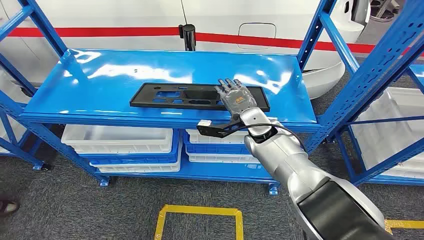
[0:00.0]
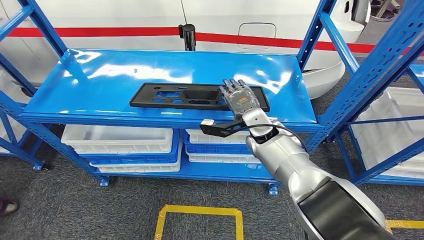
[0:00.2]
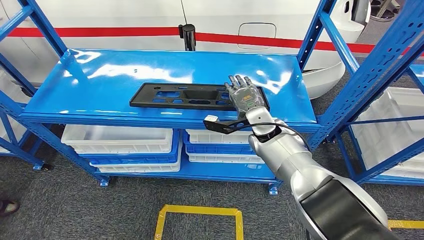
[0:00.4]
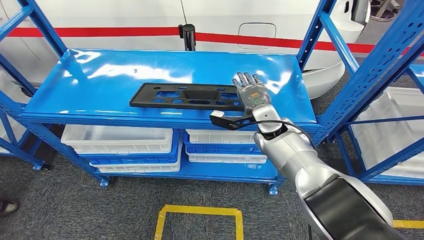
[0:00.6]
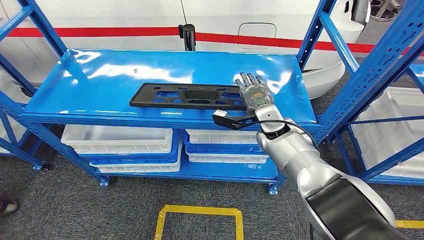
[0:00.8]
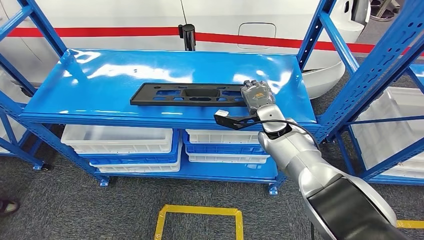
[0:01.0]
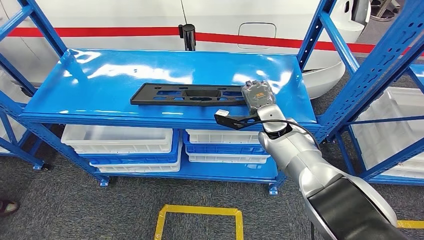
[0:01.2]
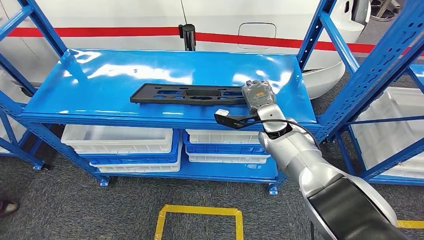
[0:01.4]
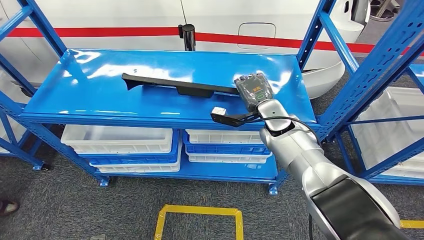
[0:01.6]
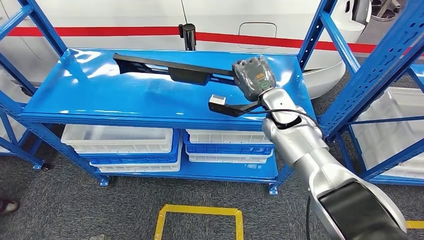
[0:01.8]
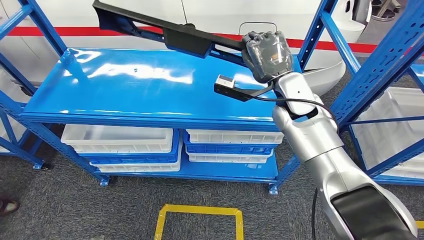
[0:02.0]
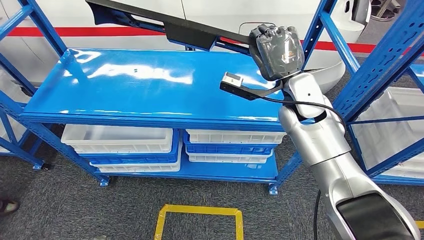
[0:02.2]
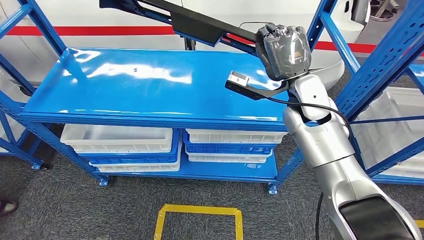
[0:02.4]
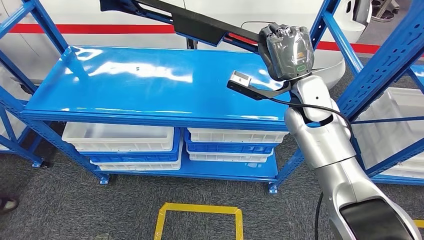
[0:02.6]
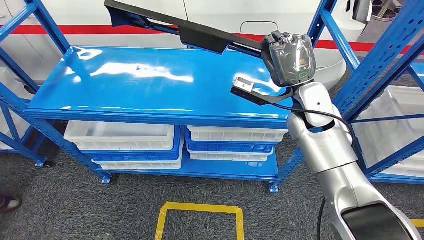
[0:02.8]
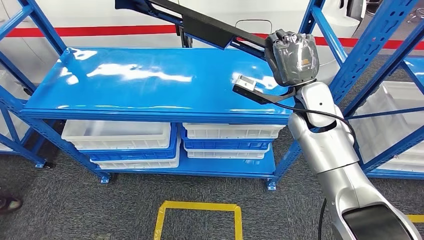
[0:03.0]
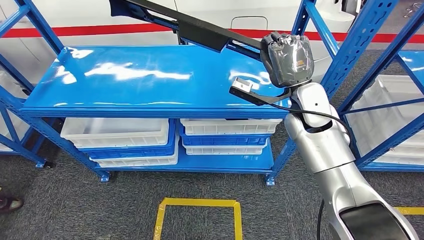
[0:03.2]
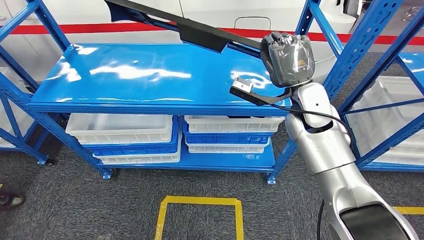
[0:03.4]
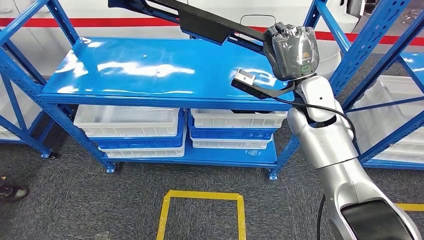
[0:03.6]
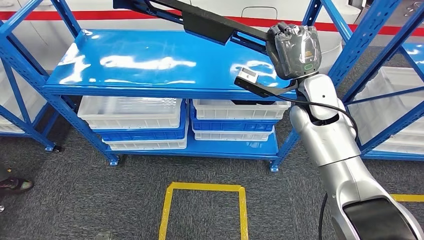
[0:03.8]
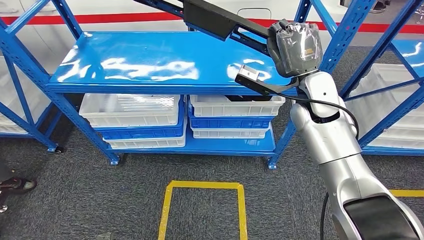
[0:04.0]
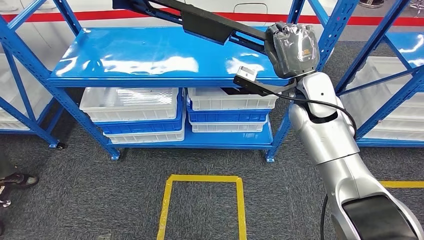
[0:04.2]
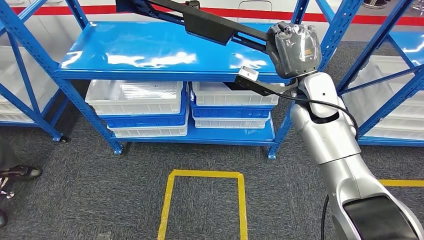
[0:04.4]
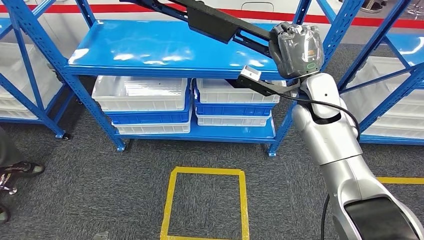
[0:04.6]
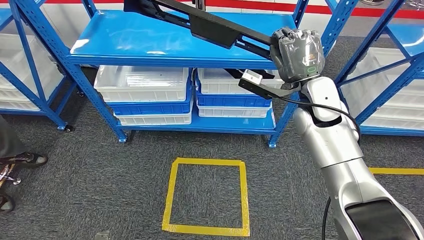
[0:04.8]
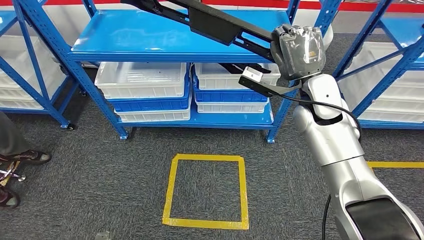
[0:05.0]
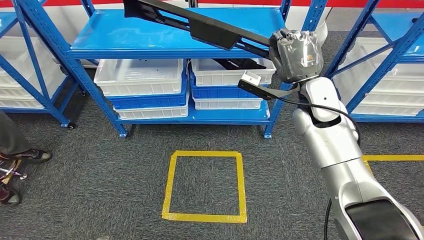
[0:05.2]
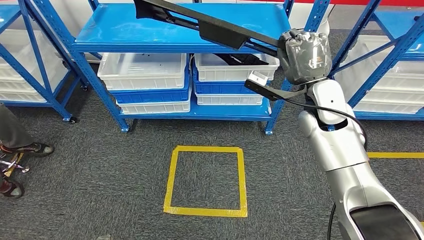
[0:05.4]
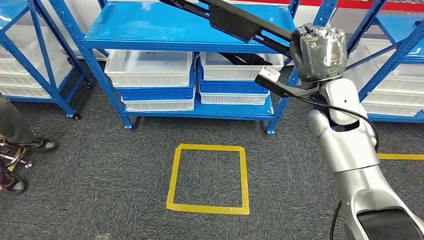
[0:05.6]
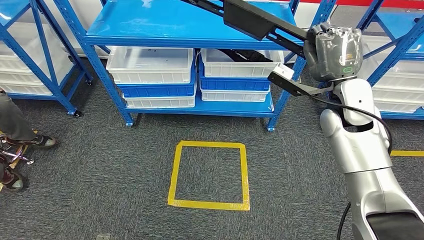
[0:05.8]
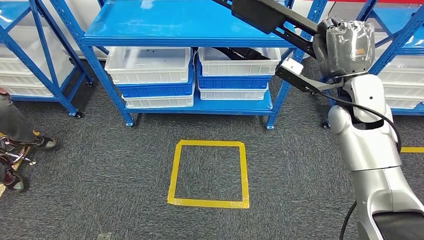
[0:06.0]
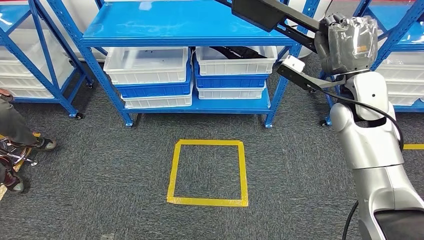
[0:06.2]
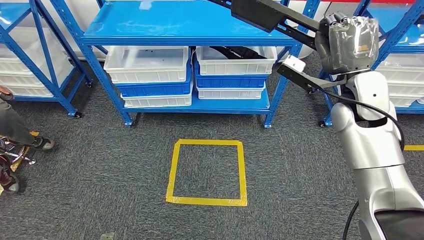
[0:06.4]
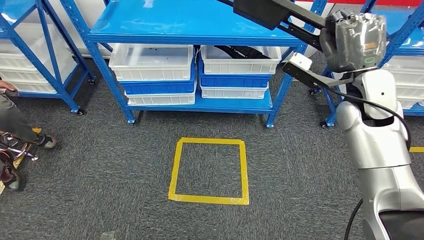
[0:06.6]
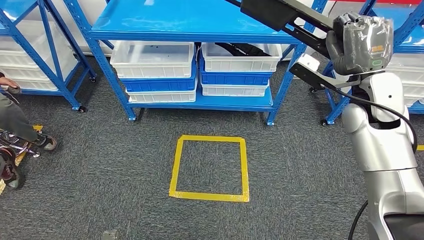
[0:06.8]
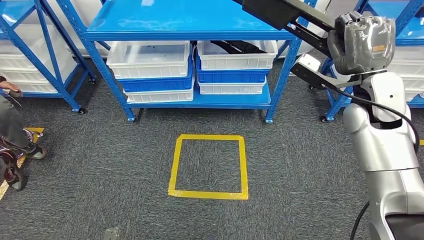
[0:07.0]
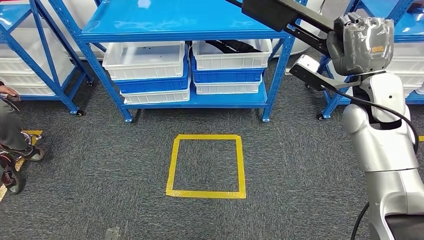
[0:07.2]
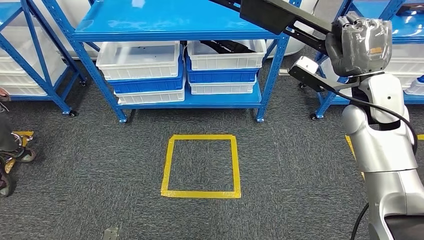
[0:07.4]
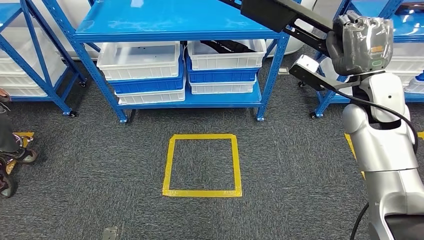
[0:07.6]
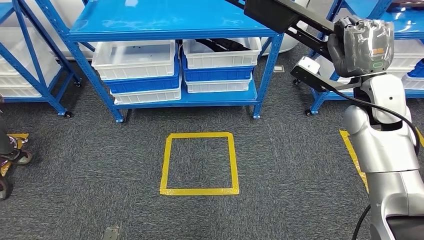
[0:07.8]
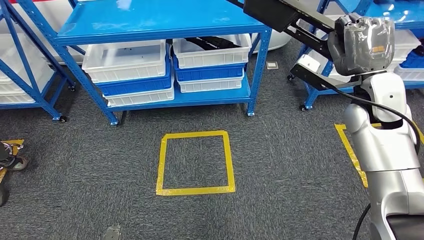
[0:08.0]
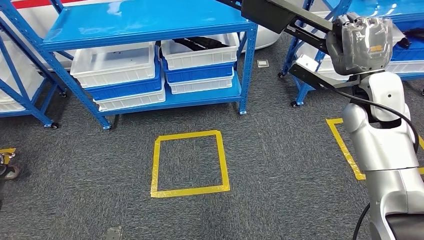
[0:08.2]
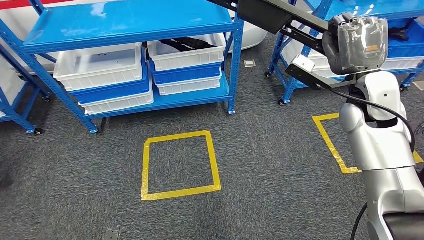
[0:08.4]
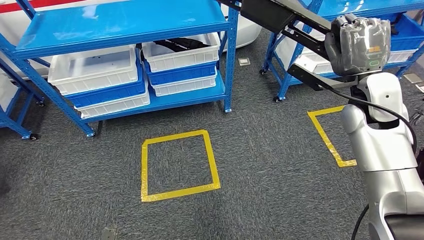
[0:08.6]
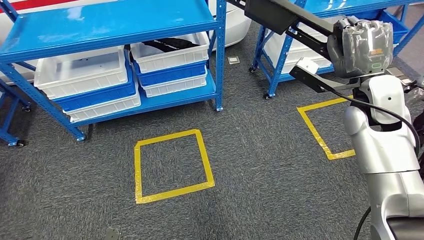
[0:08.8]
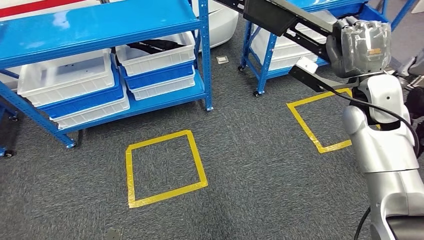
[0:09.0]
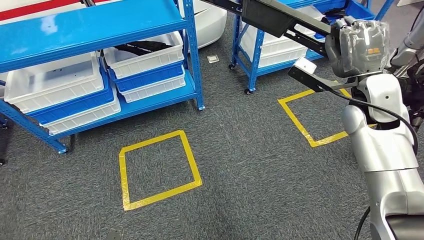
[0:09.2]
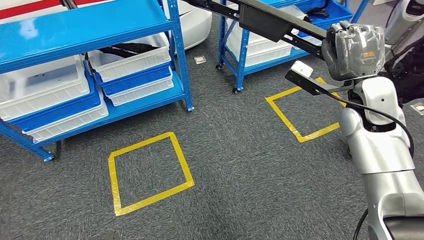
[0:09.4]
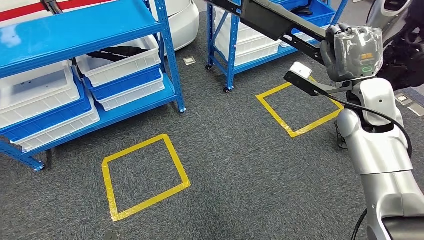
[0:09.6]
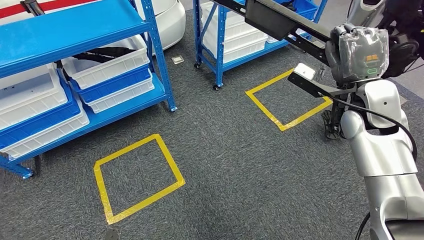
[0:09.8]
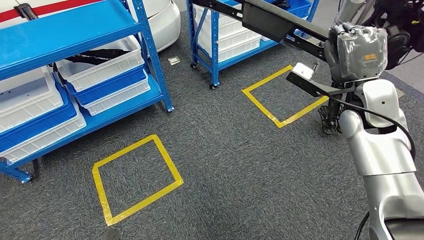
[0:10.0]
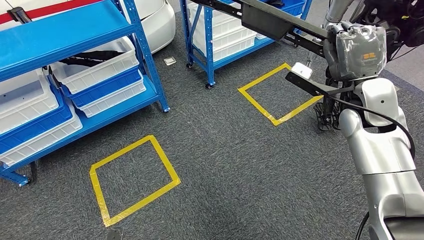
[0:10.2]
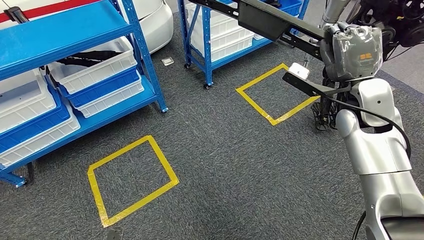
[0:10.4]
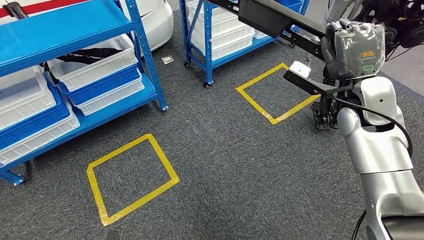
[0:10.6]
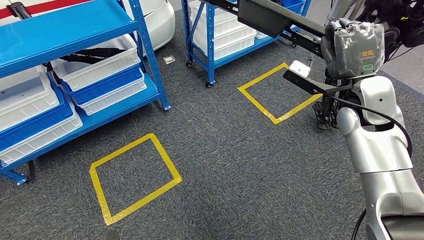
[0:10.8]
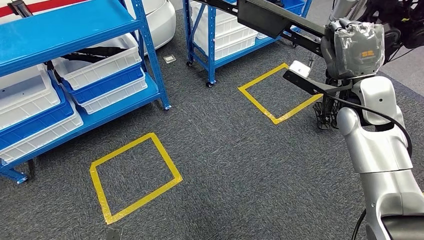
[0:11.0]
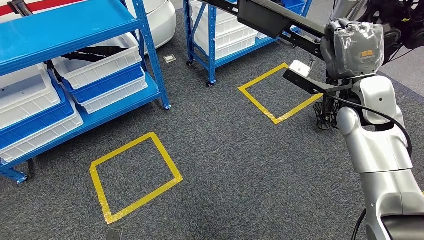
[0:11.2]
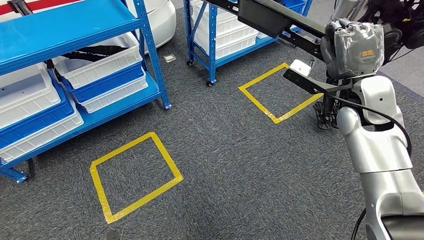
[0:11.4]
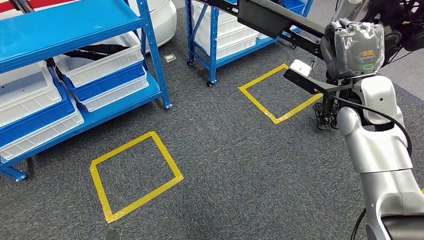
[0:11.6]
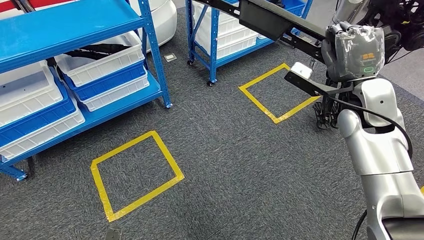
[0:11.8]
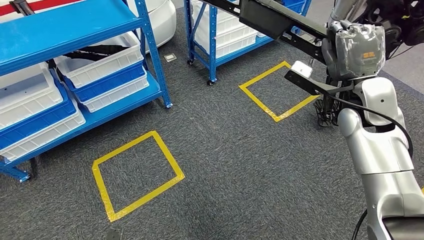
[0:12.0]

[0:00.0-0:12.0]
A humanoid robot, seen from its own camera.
Step, 0:00.0 to 0:03.4: Pick up the large material from the shelf.

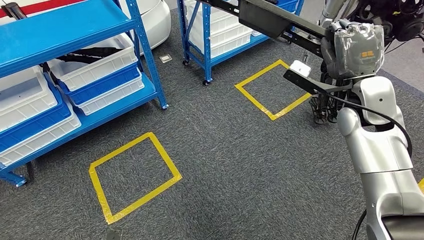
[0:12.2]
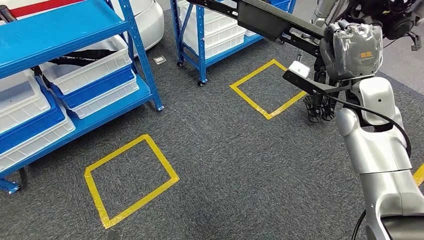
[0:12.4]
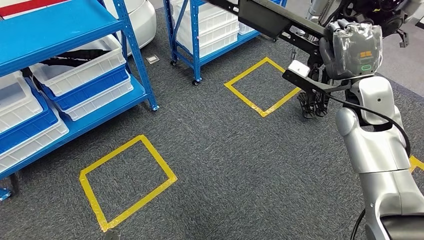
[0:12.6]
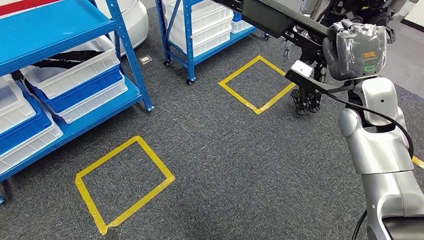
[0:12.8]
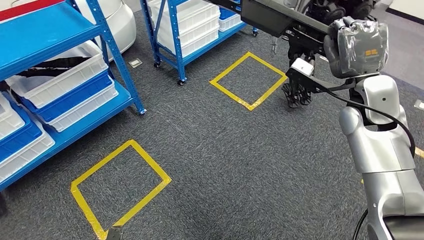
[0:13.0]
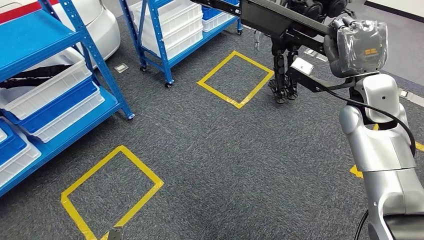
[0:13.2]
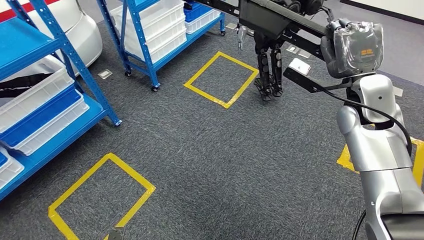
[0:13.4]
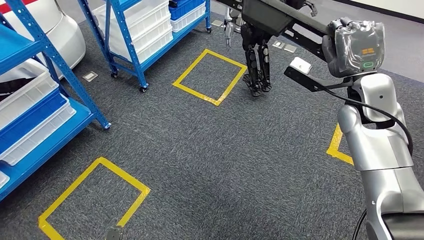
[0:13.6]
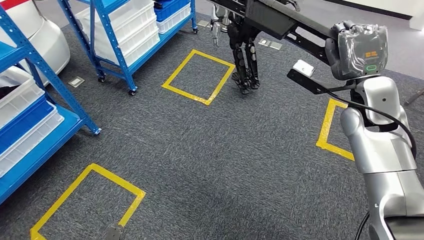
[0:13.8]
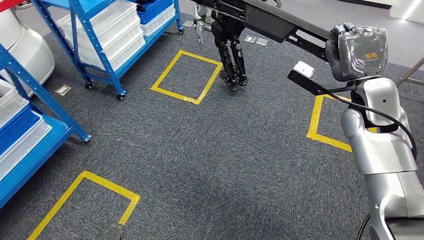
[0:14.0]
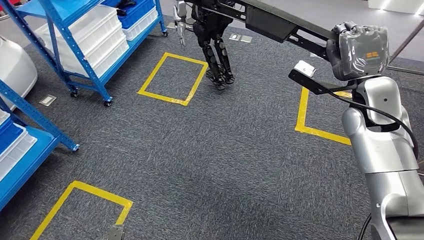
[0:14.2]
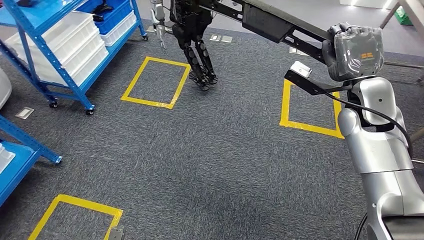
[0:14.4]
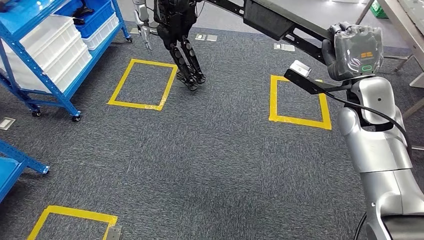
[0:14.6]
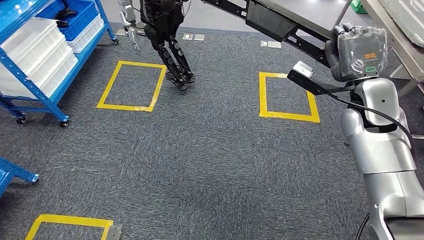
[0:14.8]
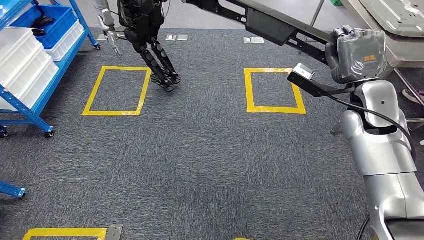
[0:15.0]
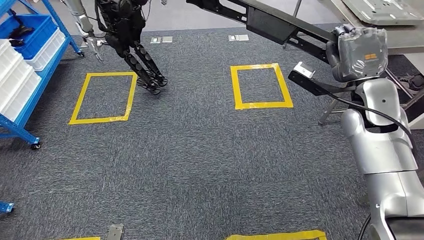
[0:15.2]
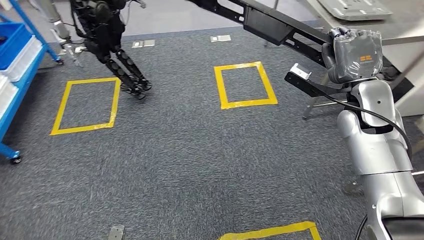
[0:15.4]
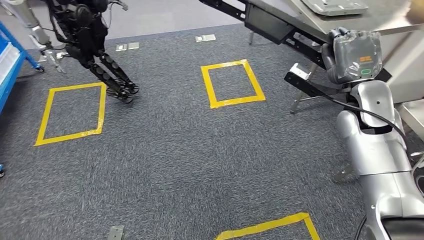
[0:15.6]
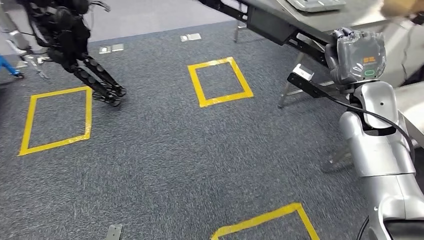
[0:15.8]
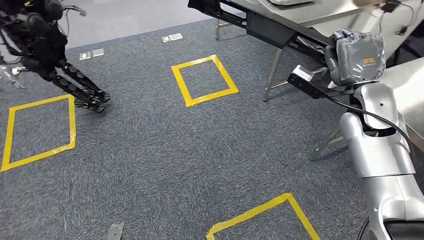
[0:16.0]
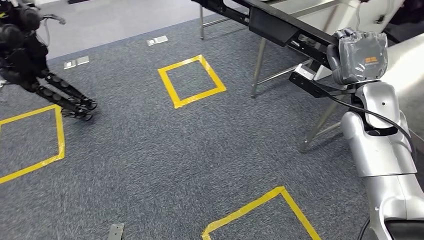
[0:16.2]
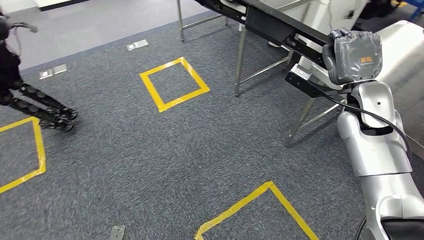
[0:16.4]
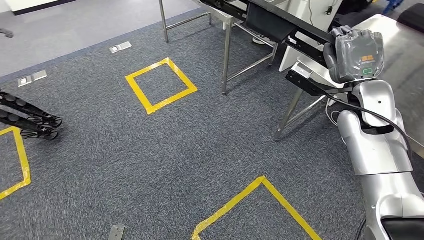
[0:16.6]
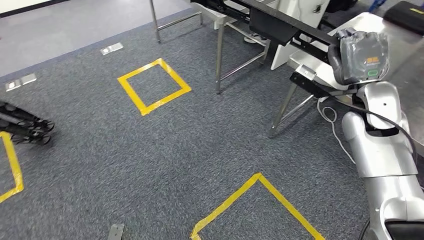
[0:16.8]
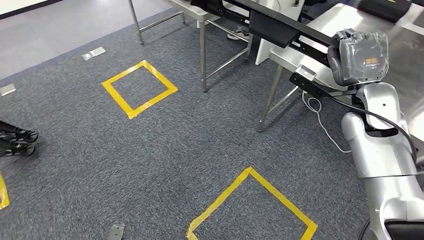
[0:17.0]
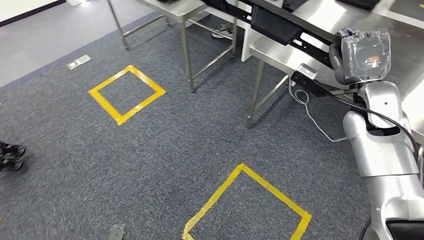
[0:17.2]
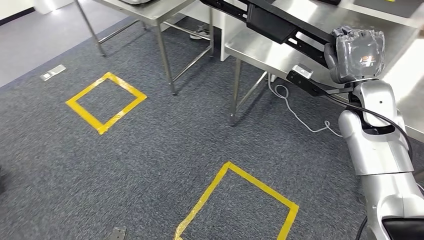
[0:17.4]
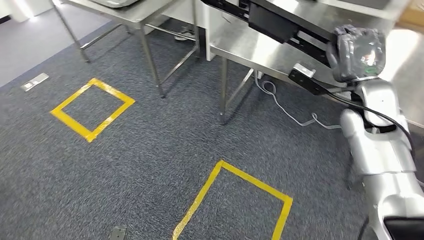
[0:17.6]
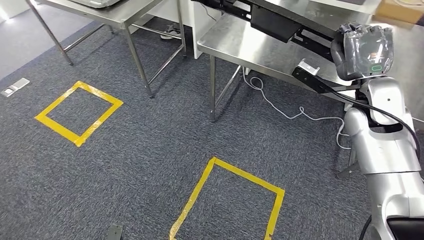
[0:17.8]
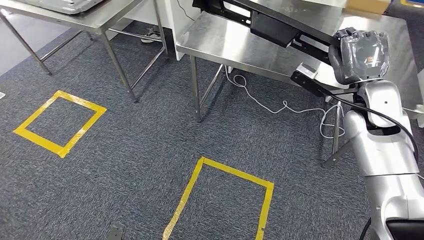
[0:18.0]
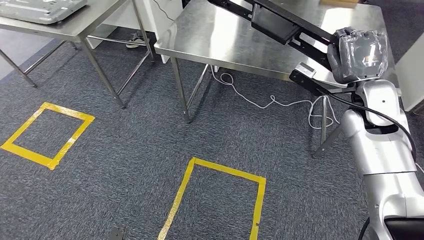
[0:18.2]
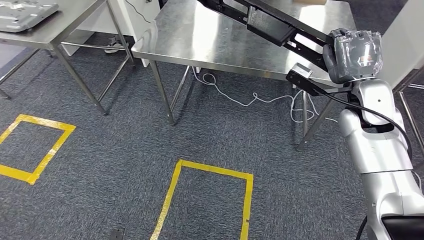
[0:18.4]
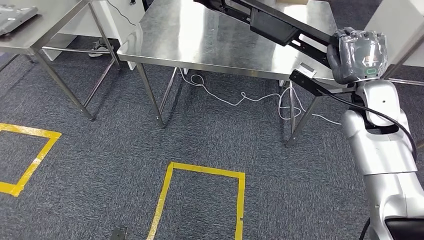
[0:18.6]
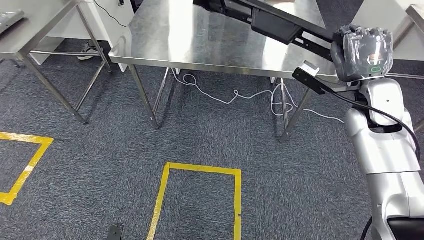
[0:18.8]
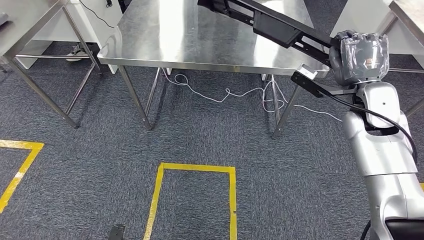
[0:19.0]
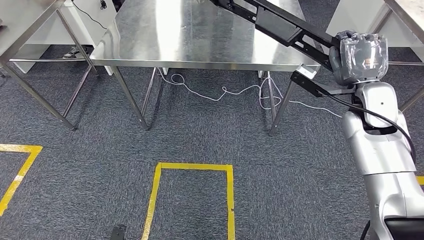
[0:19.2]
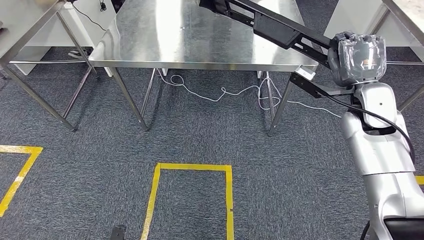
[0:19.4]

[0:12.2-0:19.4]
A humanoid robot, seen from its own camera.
Step, 0:12.2 to 0:17.8: Move the large material to the workbench.
